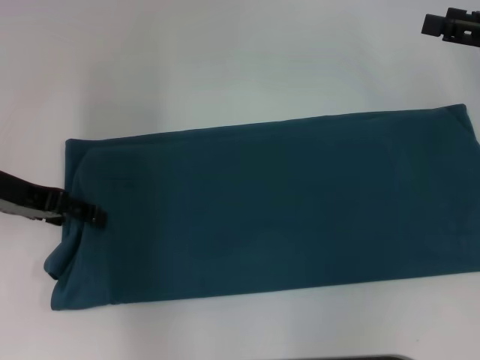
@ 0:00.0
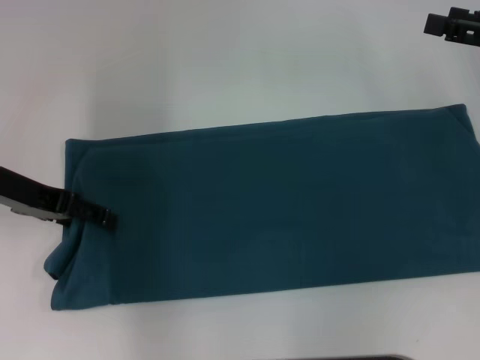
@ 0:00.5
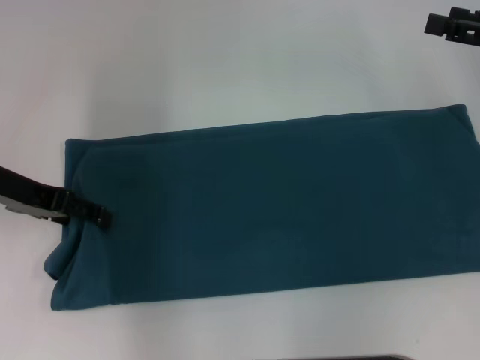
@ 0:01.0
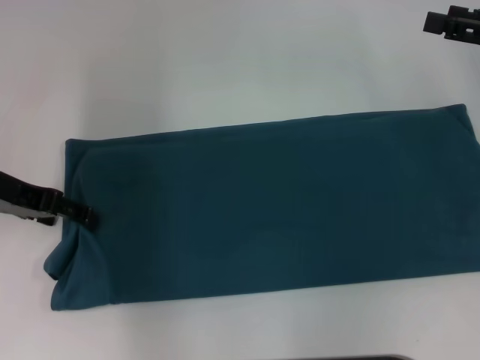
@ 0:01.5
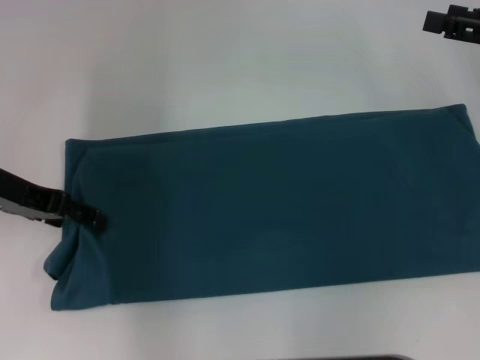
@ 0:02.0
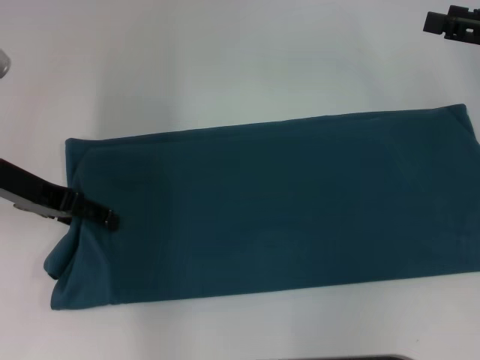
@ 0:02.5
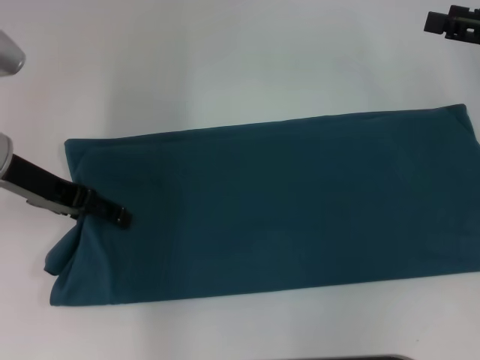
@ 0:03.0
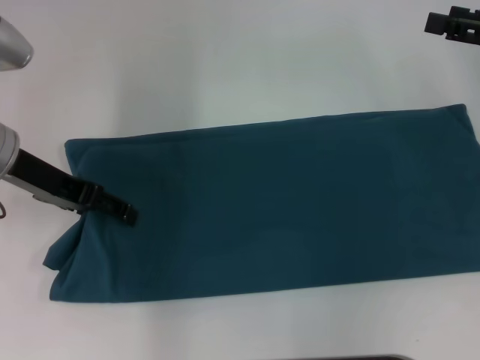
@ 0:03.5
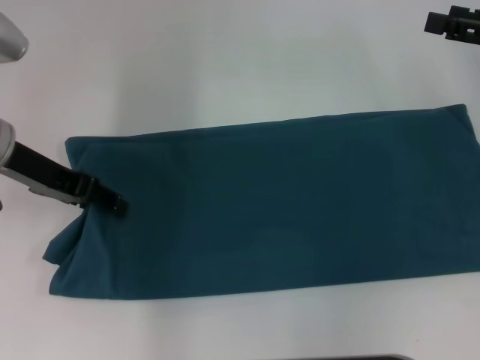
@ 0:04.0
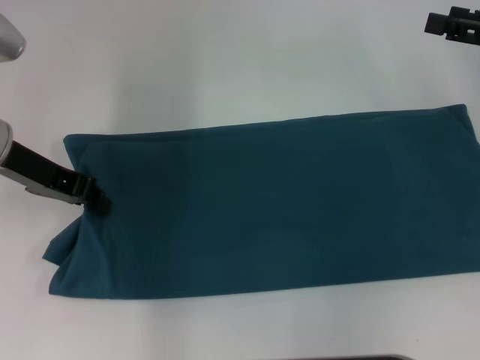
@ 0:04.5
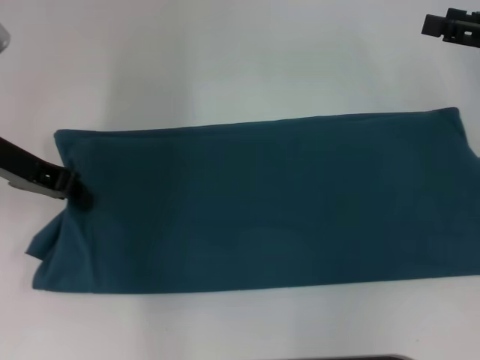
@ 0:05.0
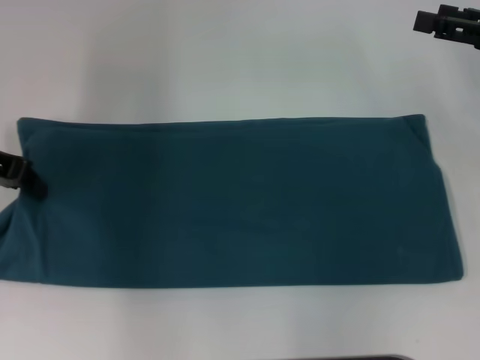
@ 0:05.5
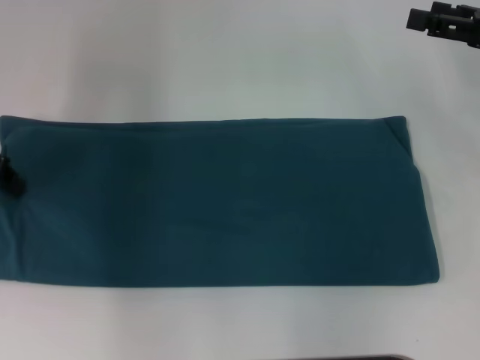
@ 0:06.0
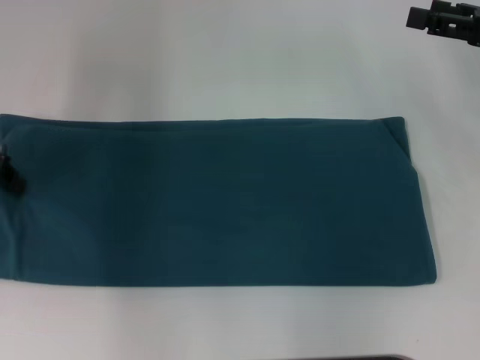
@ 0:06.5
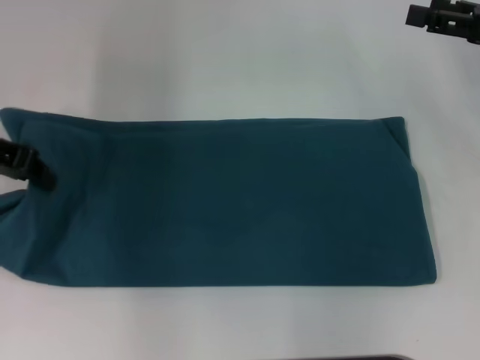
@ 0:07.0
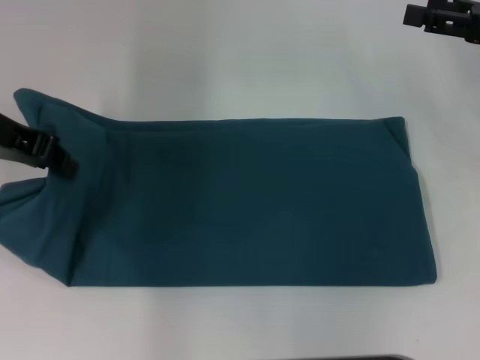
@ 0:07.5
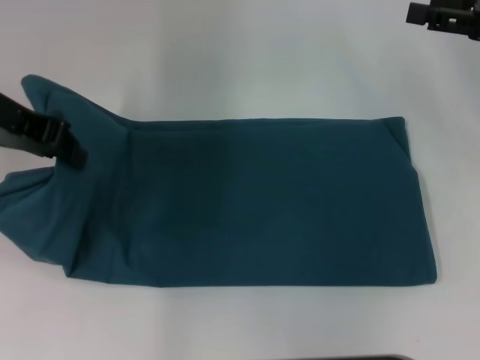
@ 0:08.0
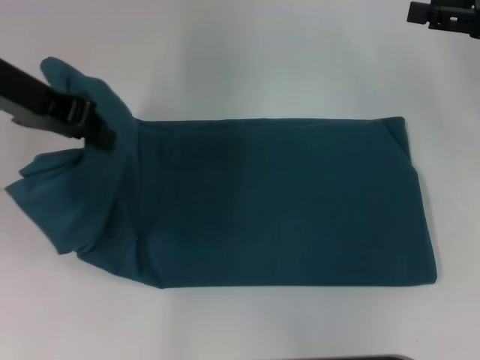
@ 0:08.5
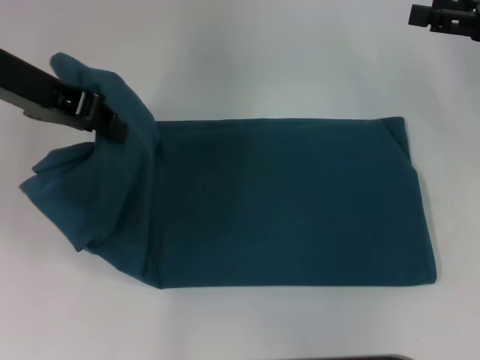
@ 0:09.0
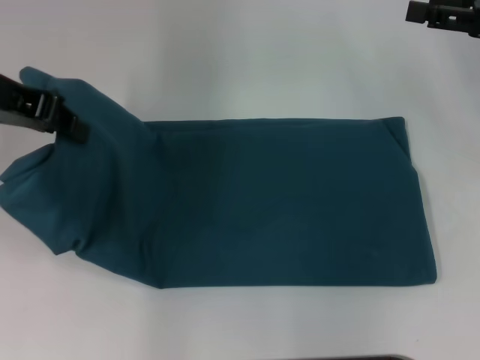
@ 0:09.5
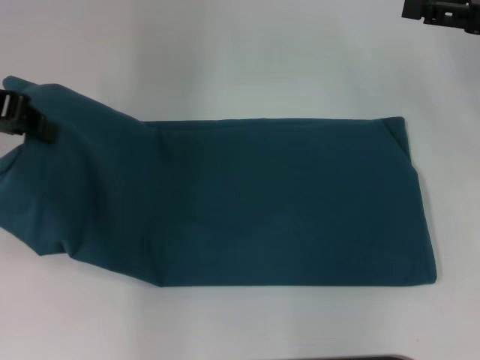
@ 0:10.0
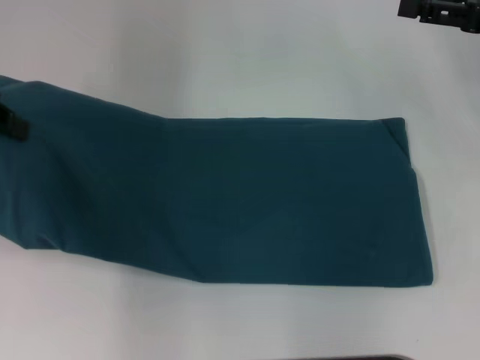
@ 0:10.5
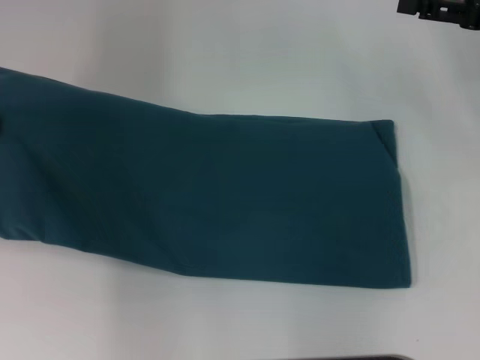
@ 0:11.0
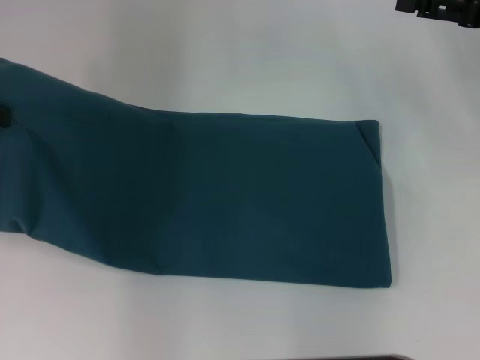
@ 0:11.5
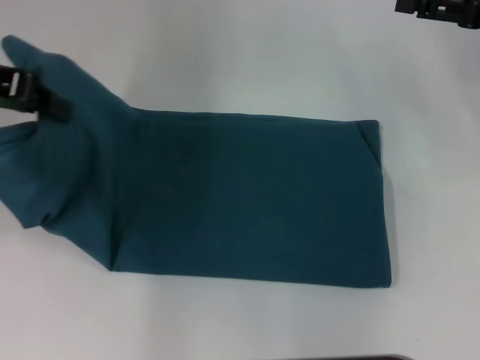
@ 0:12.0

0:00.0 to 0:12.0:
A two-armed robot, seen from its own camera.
0:00.0 to 0:02.0: Both grippers stay about where they are.
0:02.0 to 0:04.0: The grippers stay close to where they were, moving slightly.
0:04.0 to 0:06.0: The left gripper moves to the left, roughly 5 cm, and closes its fingers.
0:06.0 to 0:08.0: The left gripper is displaced to the right and upward by some 10 cm.
0:08.0 to 0:10.0: The grippers stay close to where they were, moving slightly.
0:10.0 to 0:12.0: There are only small adjustments of the grippers.

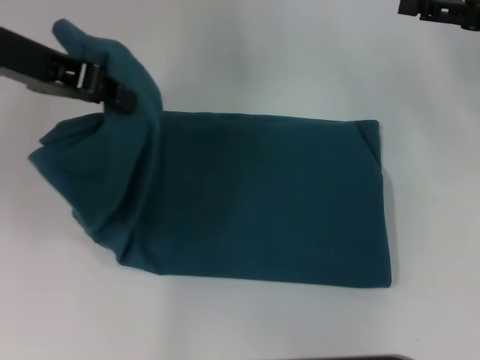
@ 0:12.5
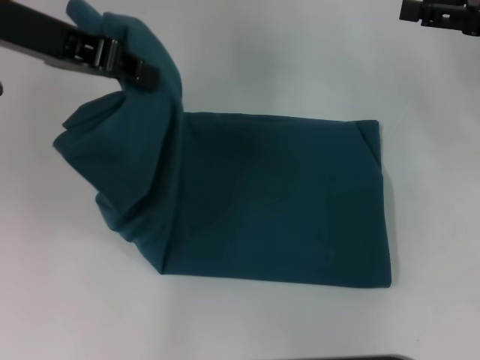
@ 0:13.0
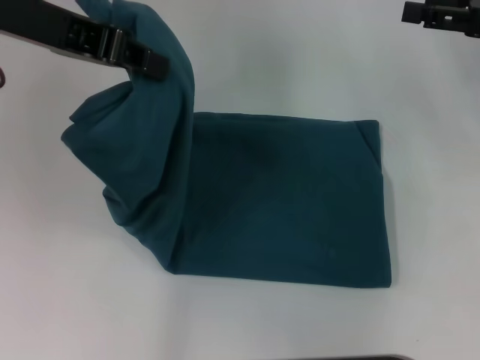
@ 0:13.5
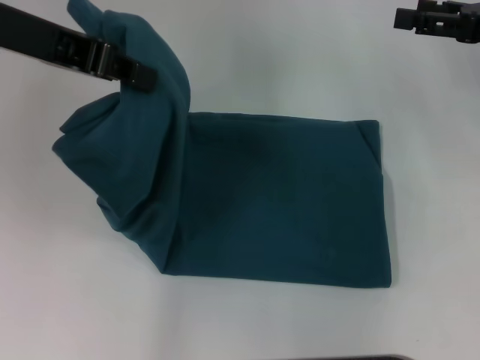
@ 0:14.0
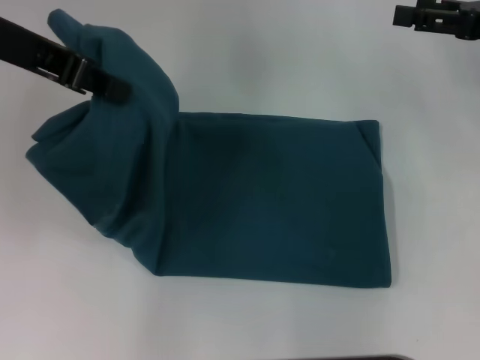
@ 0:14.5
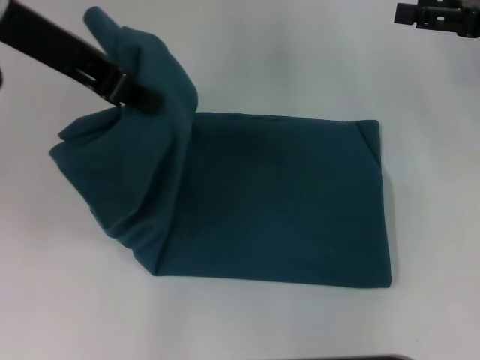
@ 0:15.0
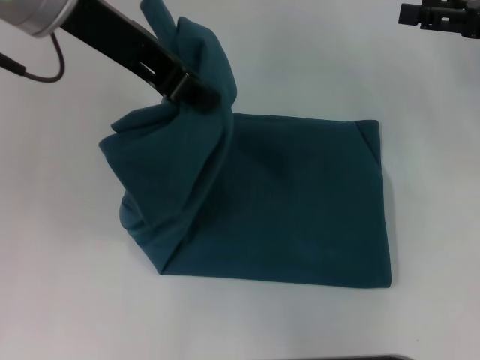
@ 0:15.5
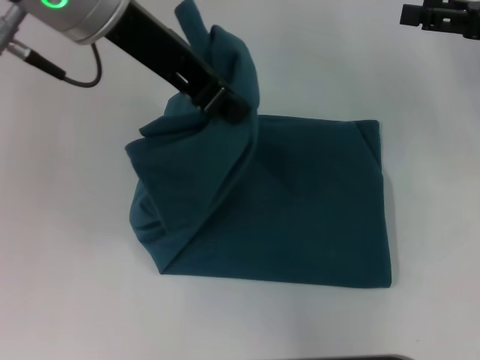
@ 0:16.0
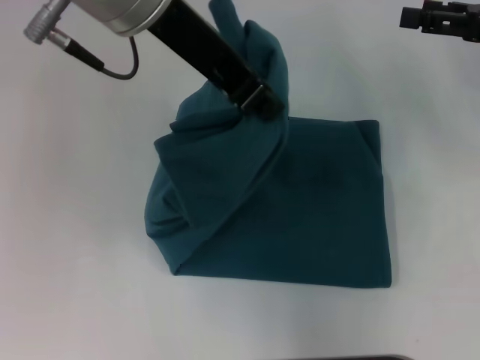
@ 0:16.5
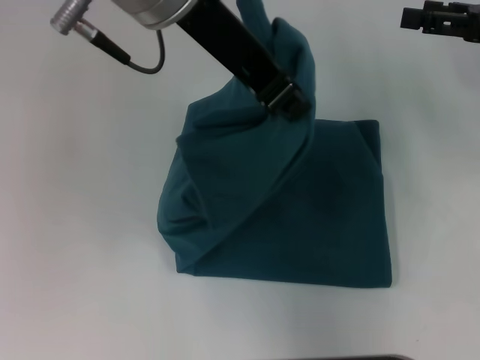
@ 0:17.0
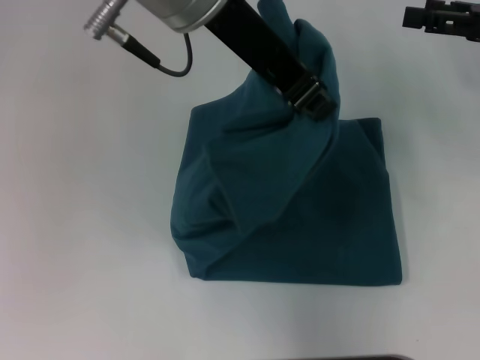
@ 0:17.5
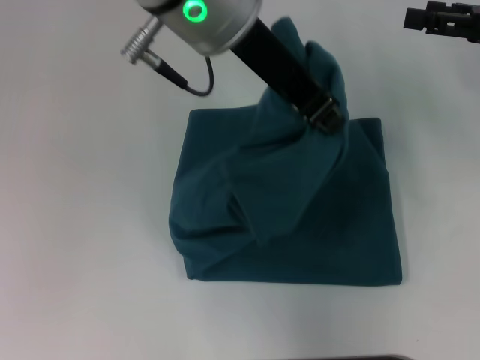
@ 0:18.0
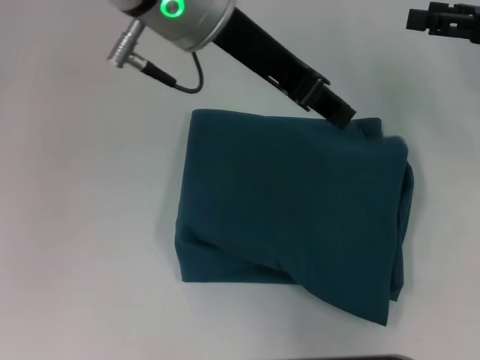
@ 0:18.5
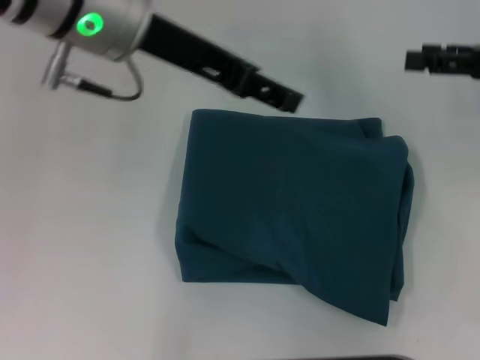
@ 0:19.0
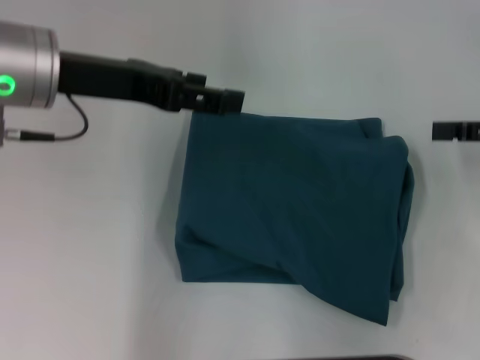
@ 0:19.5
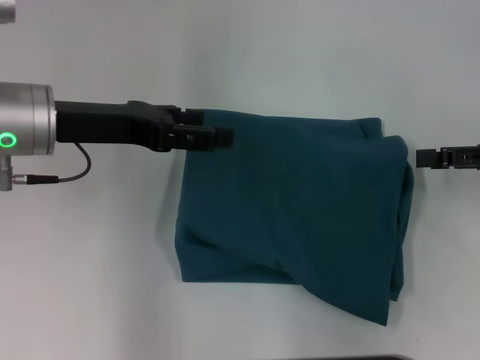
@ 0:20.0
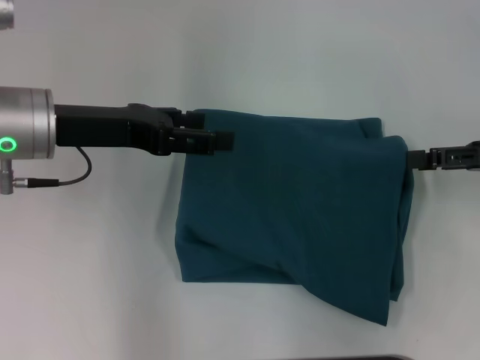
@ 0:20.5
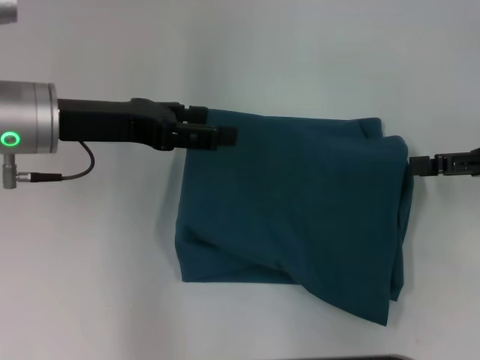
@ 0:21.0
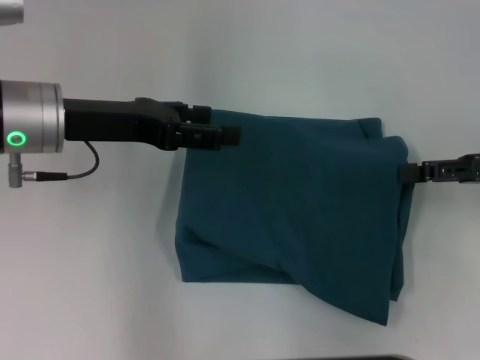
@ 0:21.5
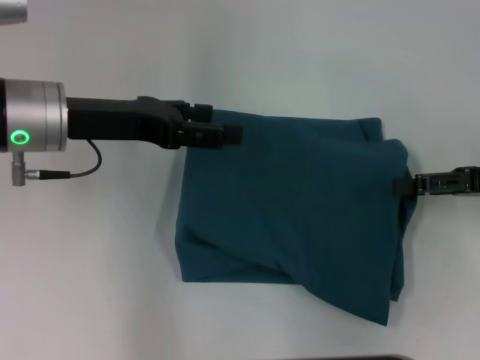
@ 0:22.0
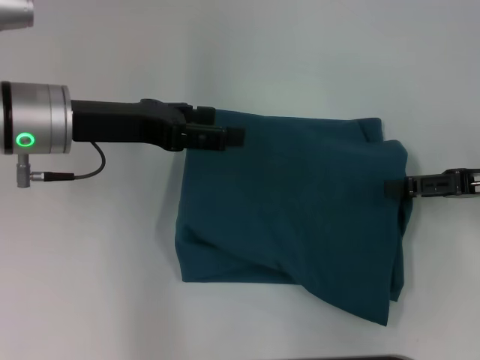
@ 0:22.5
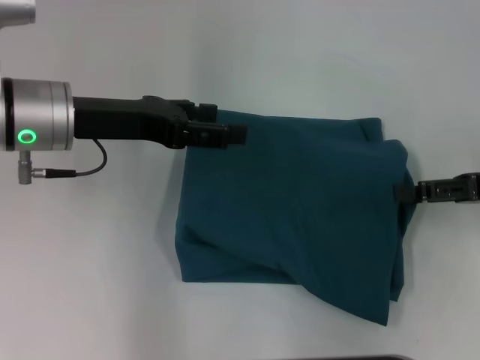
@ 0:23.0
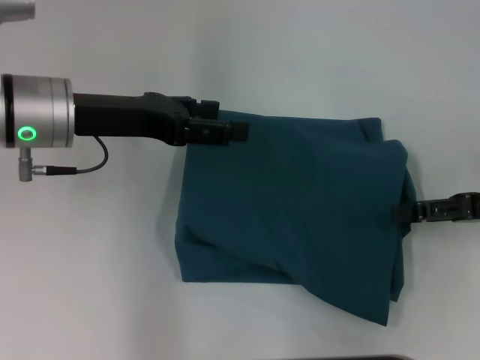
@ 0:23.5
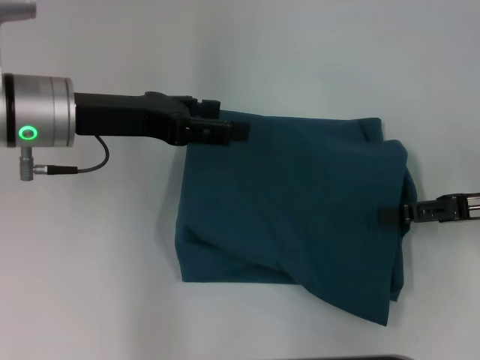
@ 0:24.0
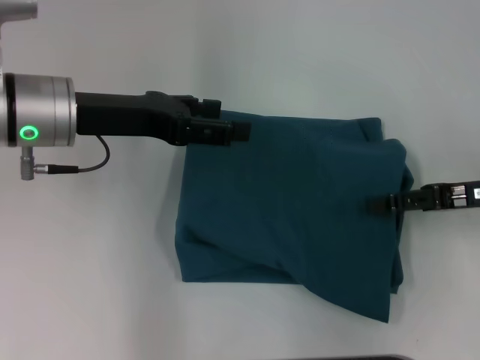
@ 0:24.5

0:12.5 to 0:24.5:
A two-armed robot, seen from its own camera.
Step, 0:12.5 to 0:18.5: Fold the clothes to the left.
0:12.5 to 0:14.5: The grippers make only small movements.
0:14.5 to 0:16.5: The left gripper travels to the right by about 15 cm.
0:16.5 to 0:18.5: There are only small adjustments of the grippers.
0:18.5 to 0:20.5: The right gripper is displaced backward by approximately 5 cm; the left gripper travels to the left and downward by some 20 cm, and opens up.
0:20.5 to 0:24.5: There are only small adjustments of the grippers.

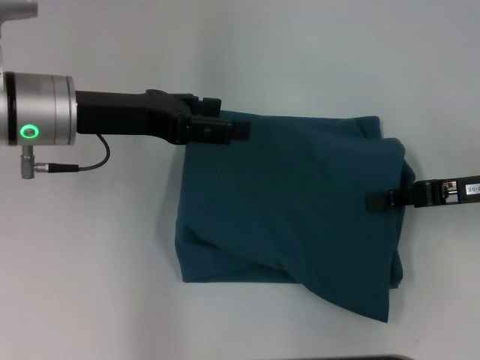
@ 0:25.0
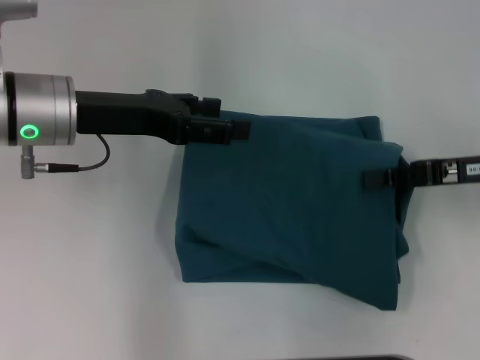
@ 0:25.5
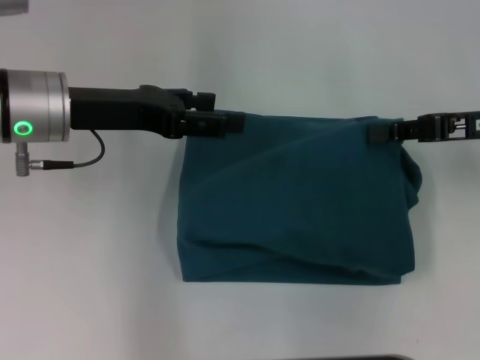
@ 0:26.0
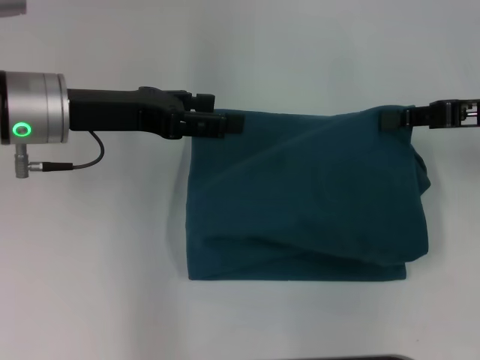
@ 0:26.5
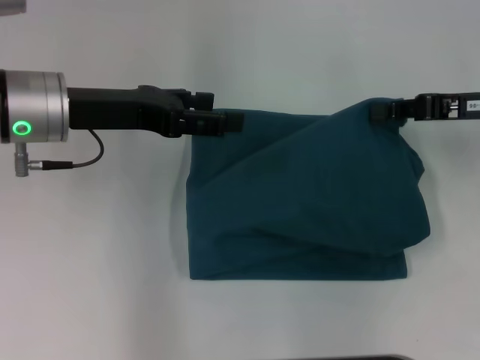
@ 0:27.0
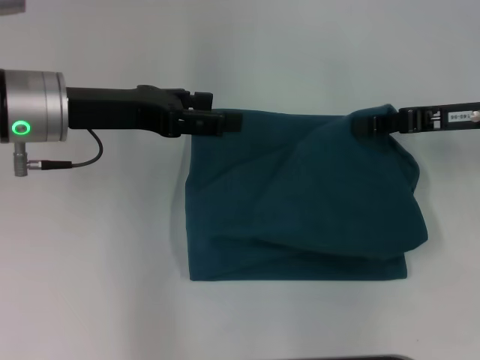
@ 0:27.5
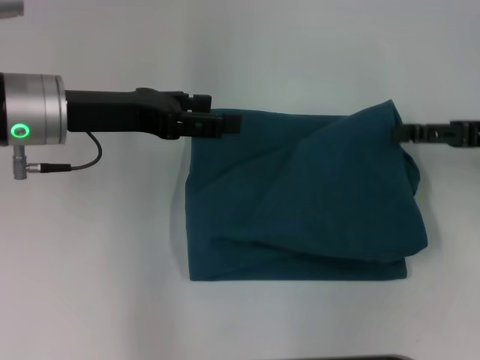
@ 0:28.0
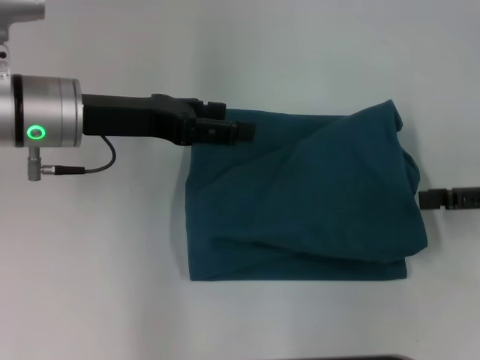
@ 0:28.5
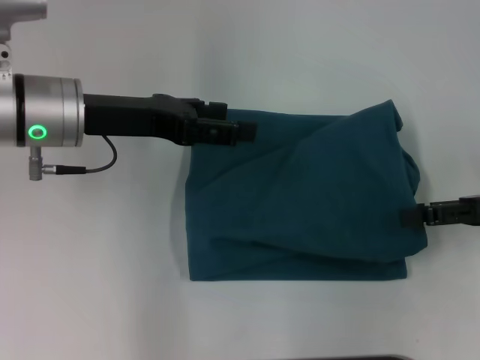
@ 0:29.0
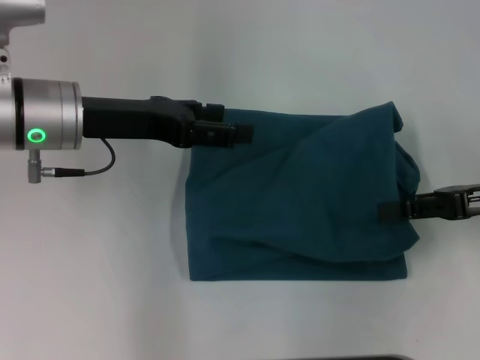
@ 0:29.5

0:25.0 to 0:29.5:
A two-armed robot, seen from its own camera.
0:25.0 to 0:27.0: The right gripper travels forward by approximately 5 cm.
0:27.0 to 0:29.5: The right gripper travels backward by about 5 cm, and opens up.
